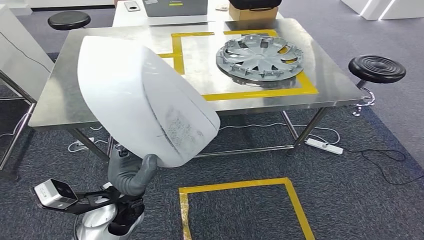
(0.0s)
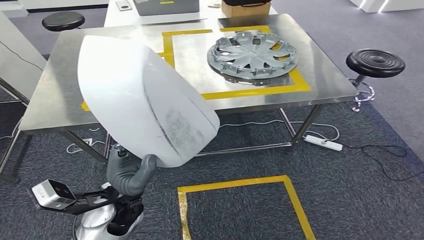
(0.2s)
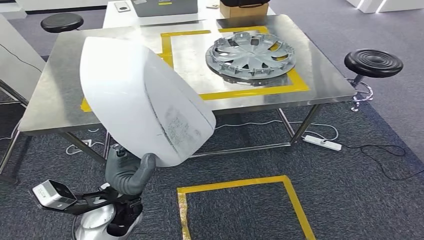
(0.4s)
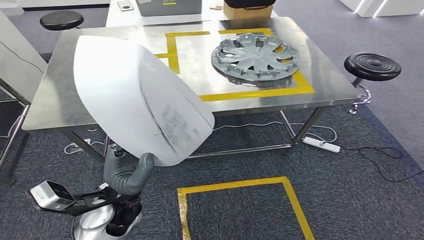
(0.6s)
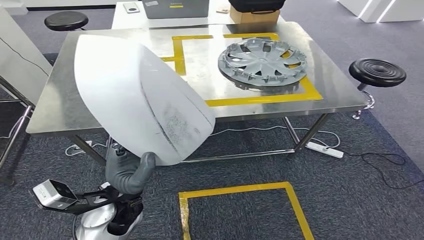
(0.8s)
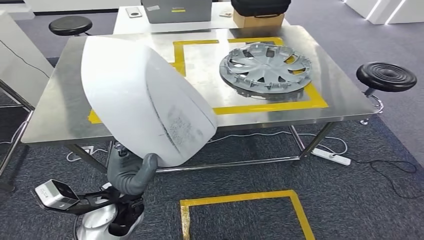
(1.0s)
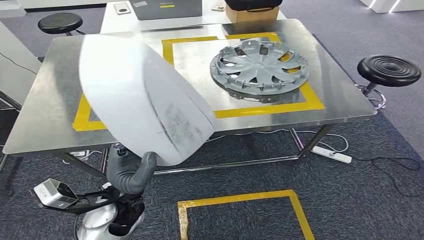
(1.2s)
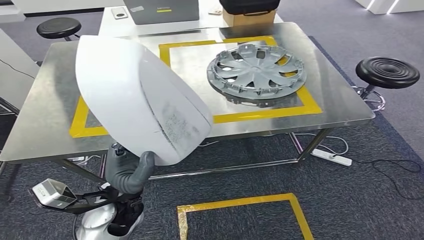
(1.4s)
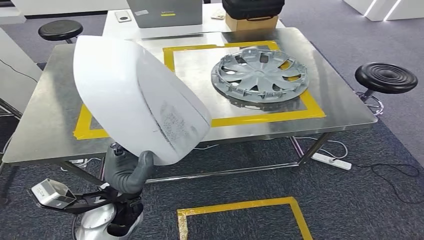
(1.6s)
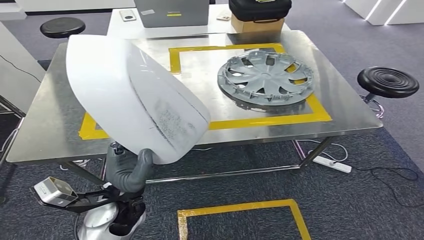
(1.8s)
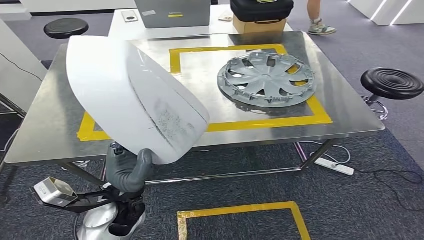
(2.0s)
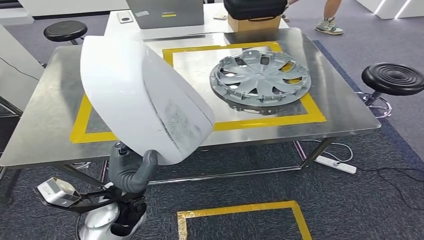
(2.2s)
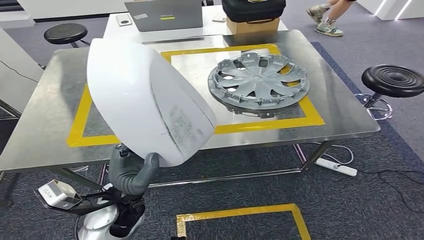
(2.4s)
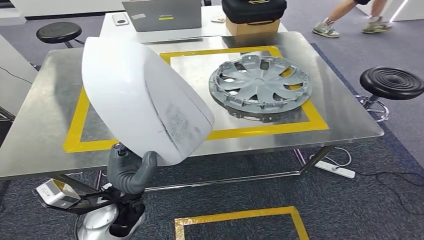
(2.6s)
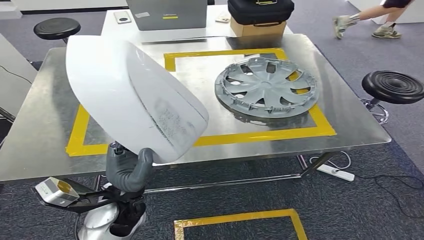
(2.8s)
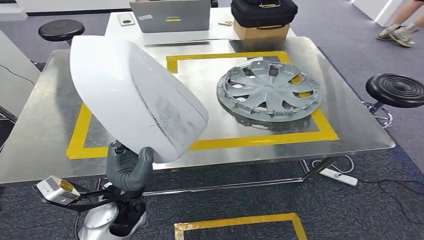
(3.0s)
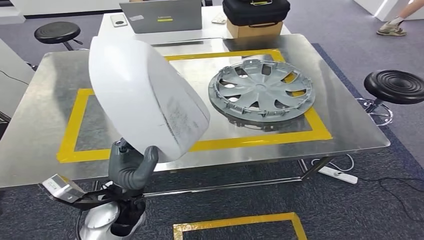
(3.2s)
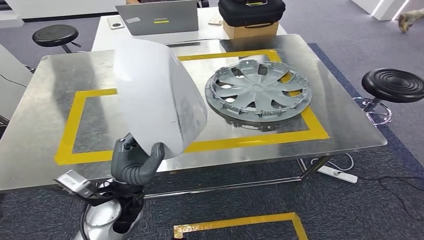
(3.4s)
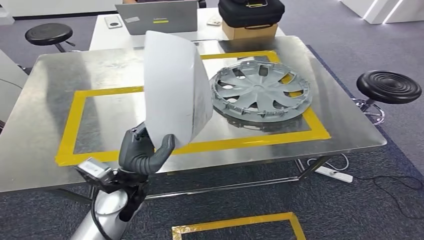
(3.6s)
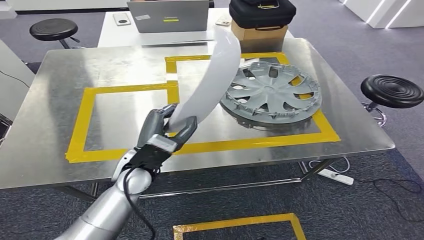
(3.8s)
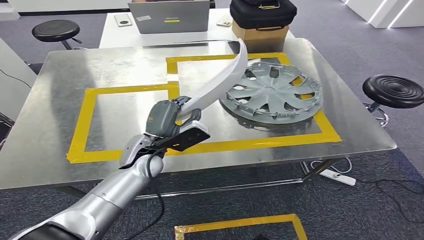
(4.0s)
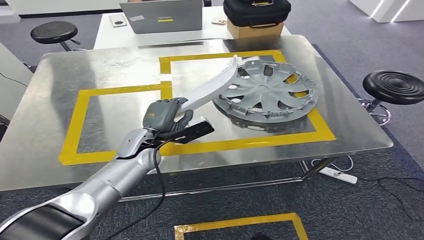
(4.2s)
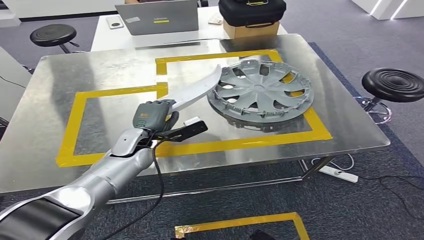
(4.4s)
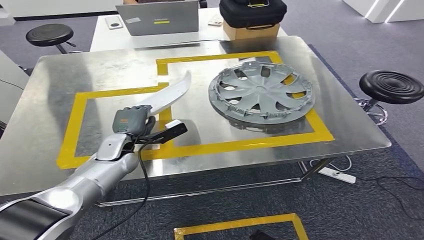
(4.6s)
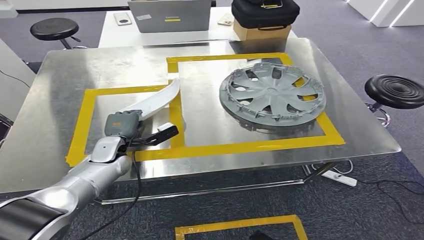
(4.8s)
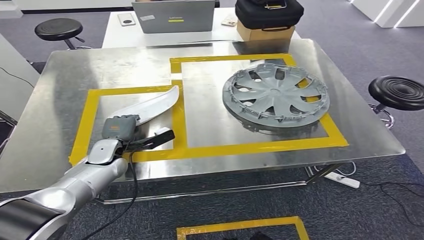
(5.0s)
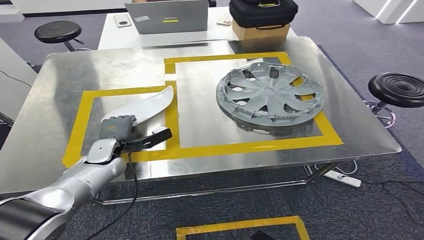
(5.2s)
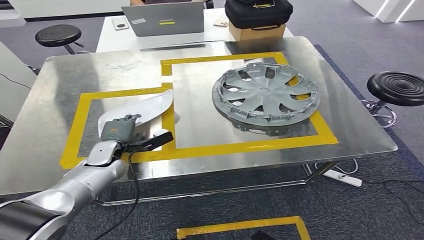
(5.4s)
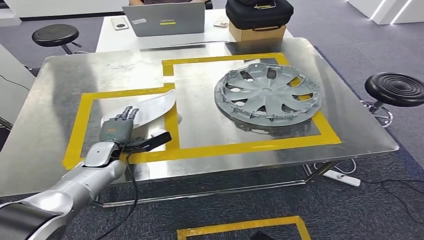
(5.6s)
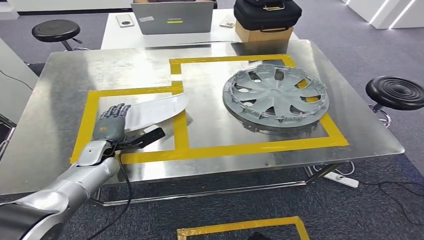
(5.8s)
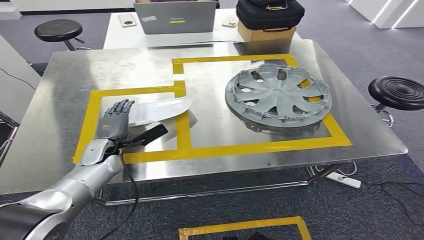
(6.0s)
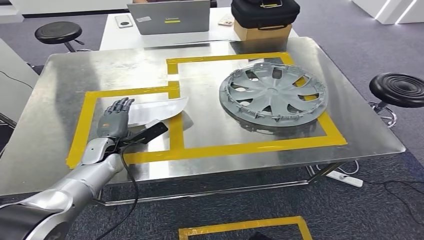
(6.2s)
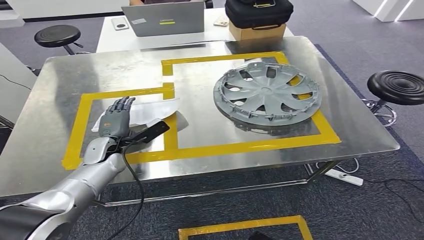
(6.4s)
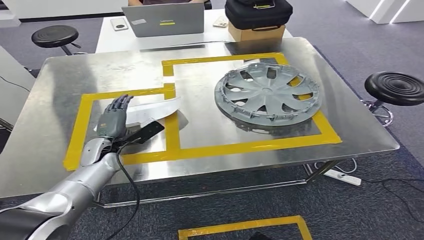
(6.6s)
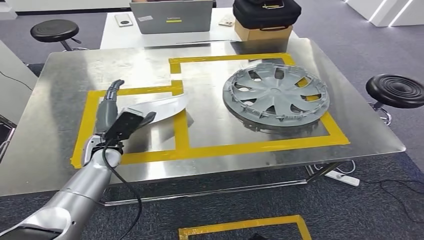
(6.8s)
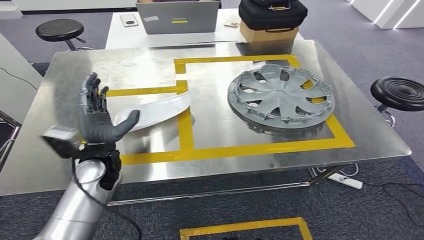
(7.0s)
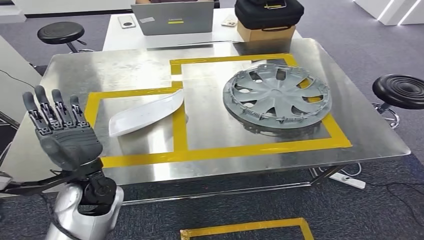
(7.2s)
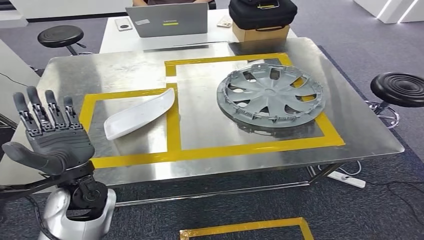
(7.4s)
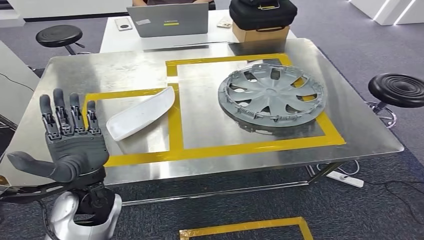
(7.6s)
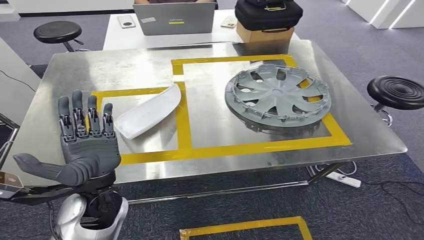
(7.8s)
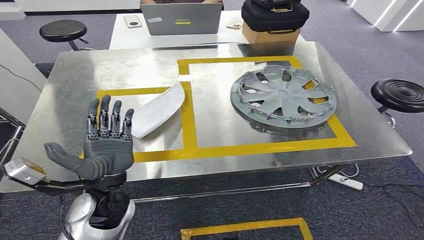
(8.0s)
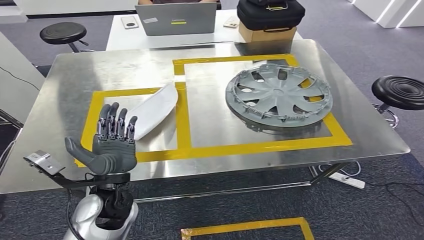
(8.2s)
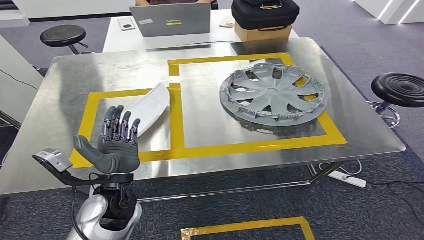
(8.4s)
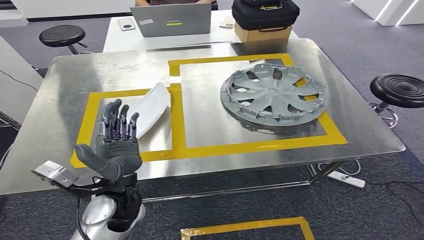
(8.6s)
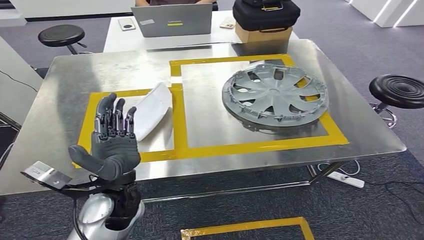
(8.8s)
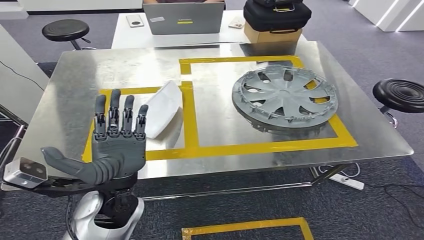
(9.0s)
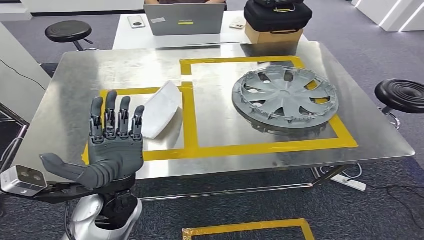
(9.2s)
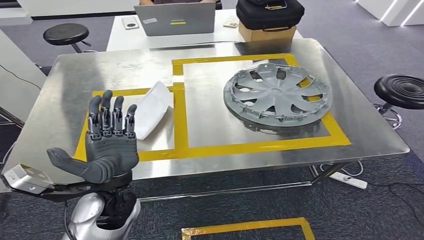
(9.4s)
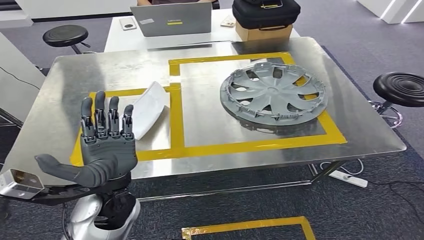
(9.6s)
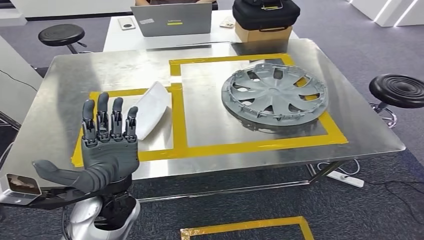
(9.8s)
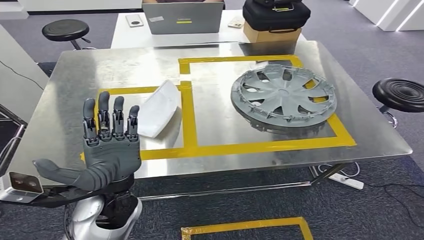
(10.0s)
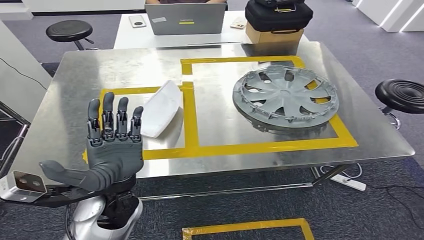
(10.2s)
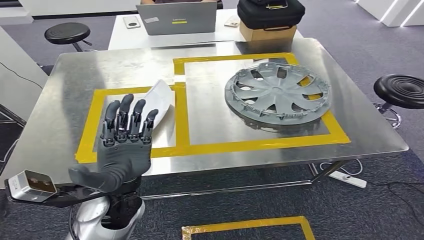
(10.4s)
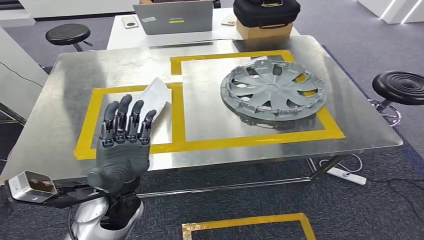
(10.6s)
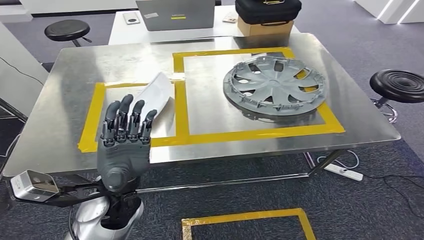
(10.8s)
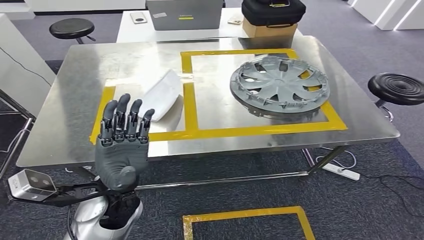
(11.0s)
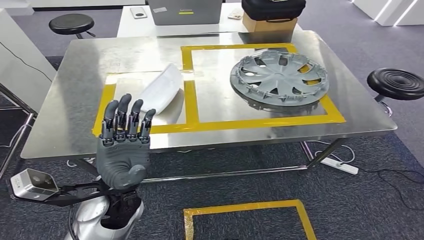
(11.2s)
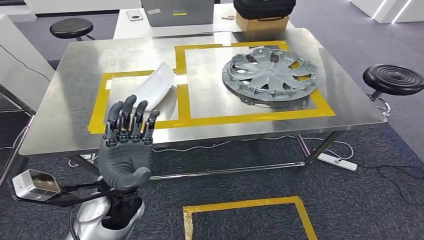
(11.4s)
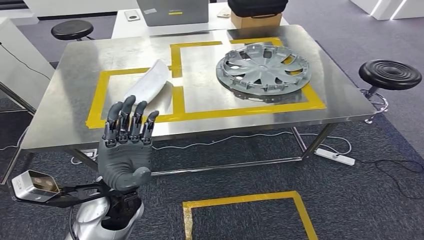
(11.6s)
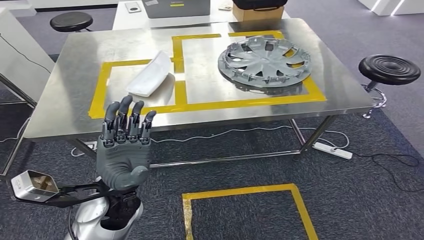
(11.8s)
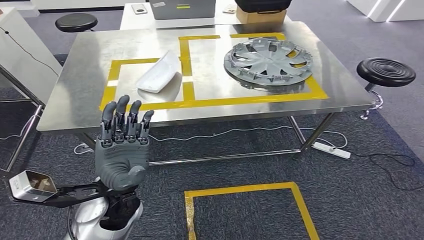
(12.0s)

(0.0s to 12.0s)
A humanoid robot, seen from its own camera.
Step, 0.0s - 3.0s: Move the small component to the workbench.
Step, 3.6s - 11.2s: Insert the small component into the corresponding slot on the workbench.

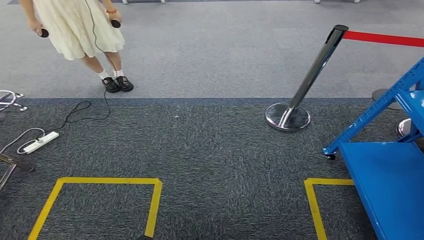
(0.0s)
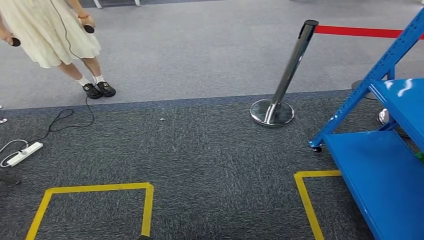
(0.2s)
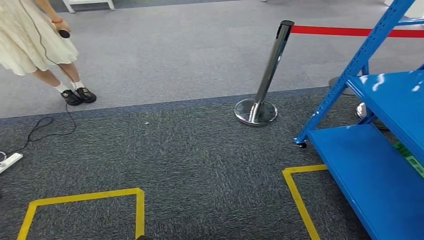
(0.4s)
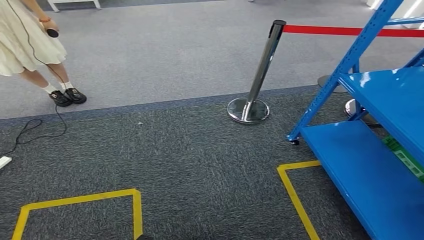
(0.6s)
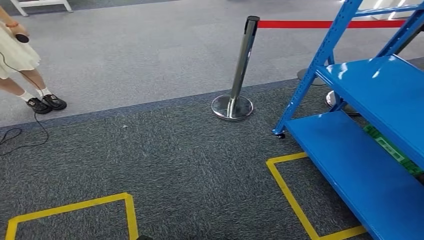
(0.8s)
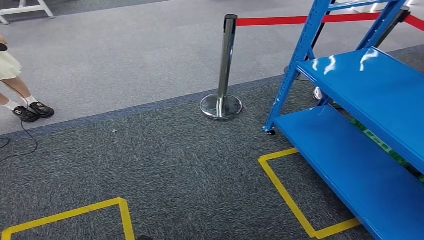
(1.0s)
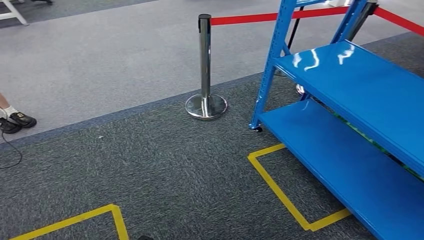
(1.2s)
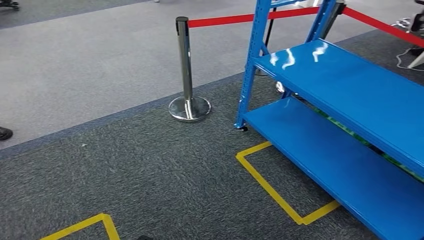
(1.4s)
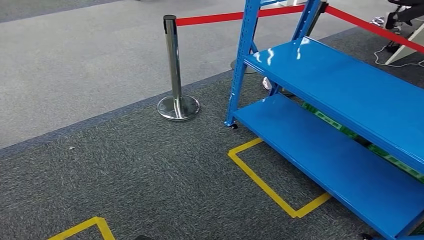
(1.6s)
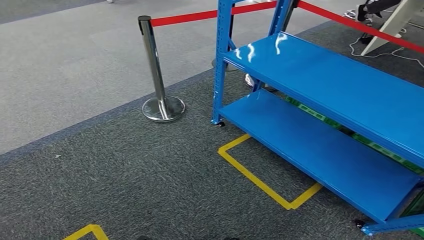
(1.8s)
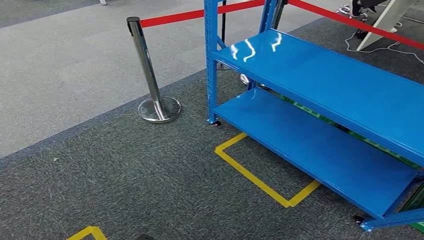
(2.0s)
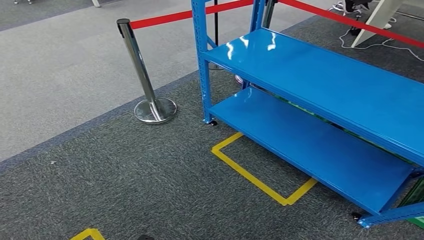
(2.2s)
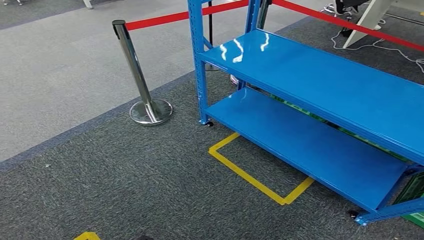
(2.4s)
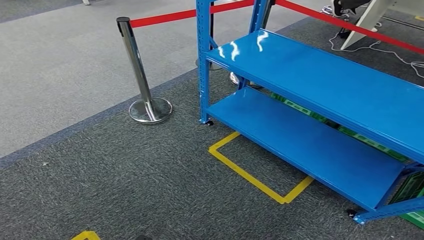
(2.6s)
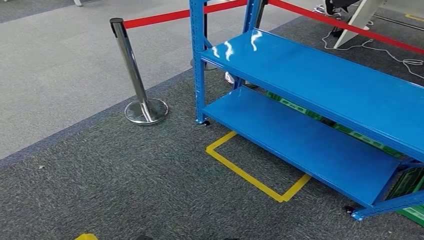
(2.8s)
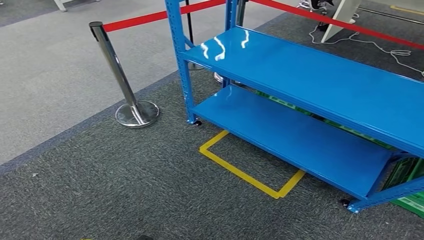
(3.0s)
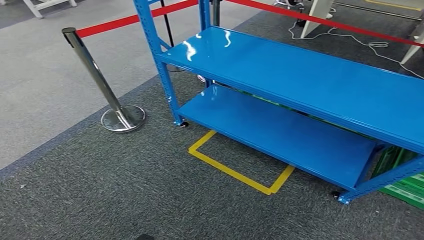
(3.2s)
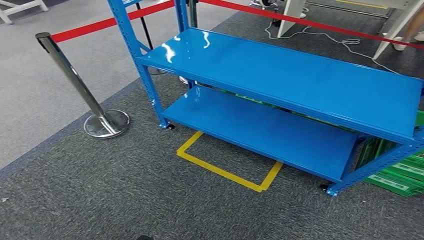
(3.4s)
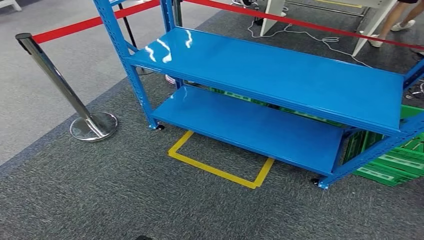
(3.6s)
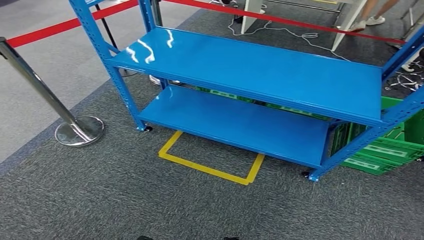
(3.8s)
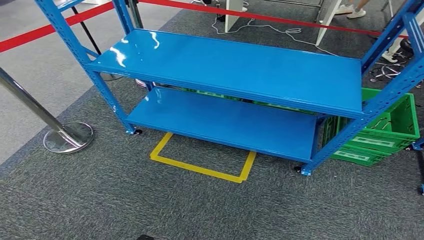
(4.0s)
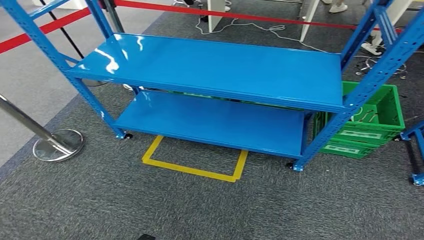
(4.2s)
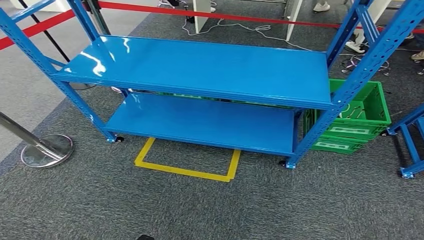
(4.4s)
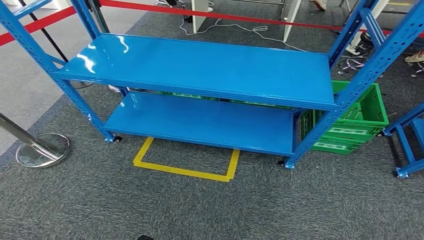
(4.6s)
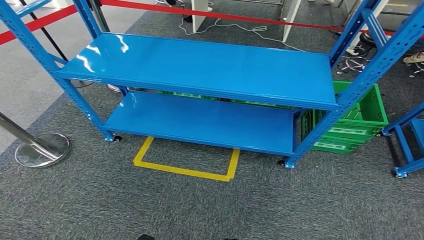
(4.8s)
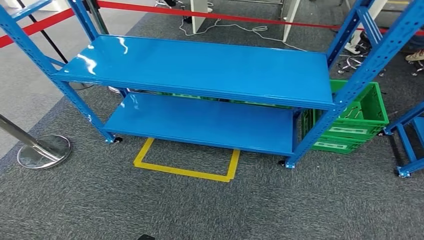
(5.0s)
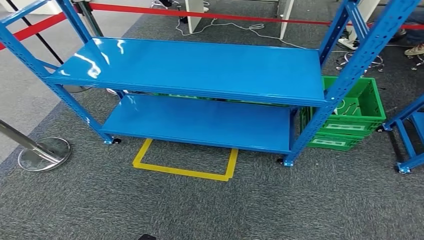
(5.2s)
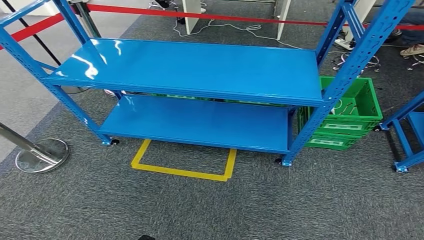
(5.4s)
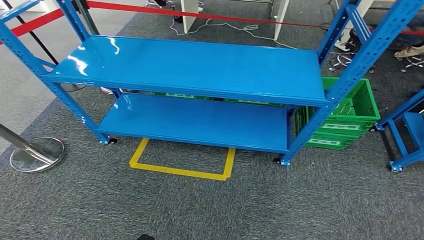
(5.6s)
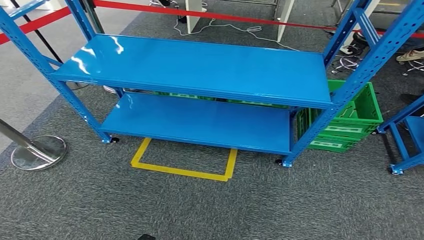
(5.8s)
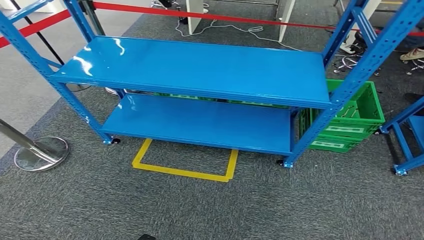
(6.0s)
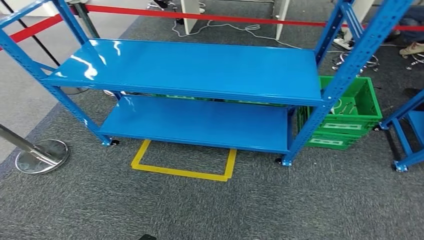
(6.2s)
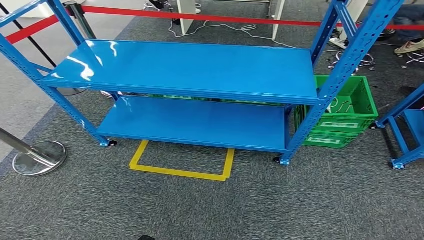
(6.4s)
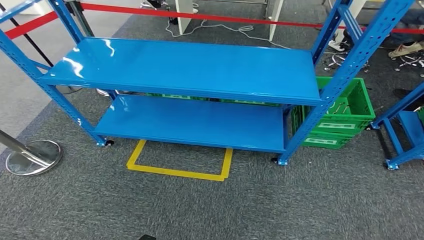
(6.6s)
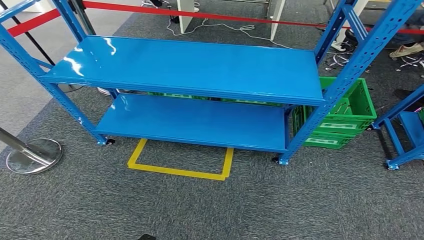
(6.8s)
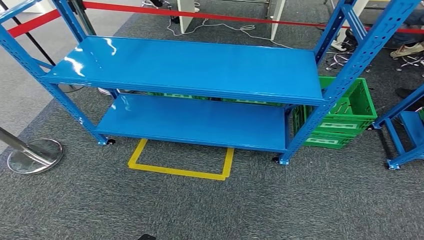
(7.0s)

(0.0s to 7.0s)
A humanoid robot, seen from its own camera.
5.6s - 7.0s: Neither hand changes place.
